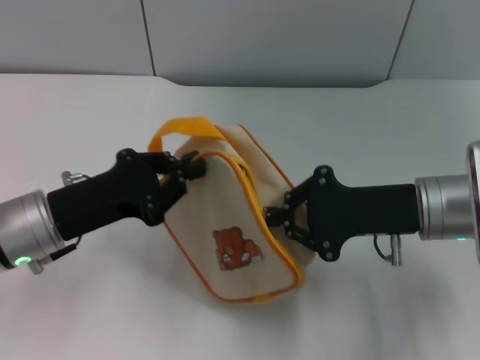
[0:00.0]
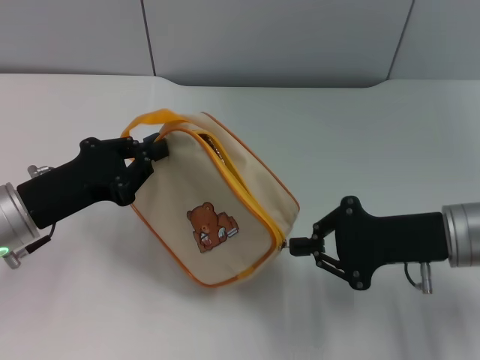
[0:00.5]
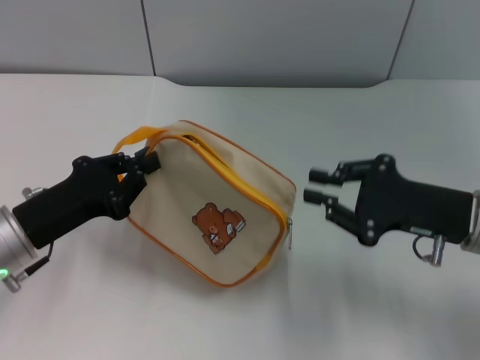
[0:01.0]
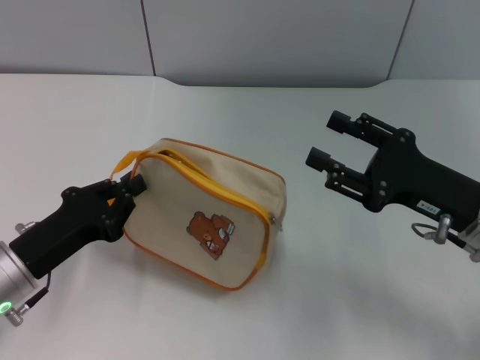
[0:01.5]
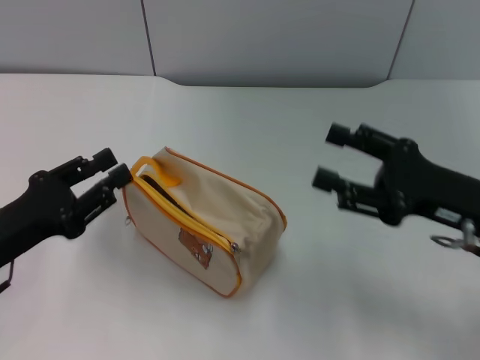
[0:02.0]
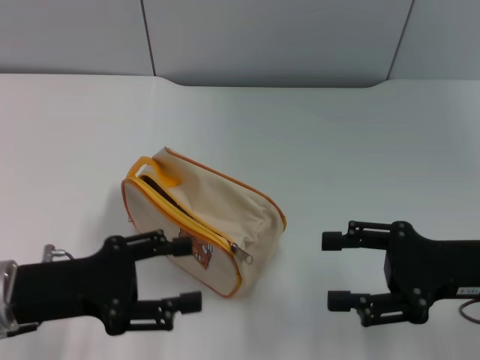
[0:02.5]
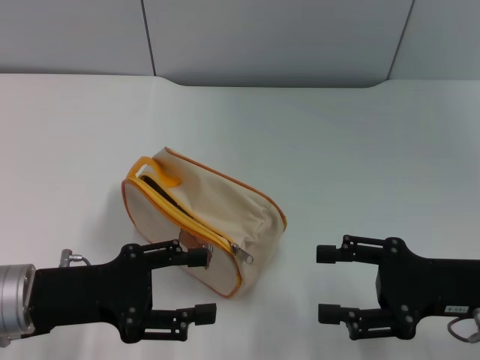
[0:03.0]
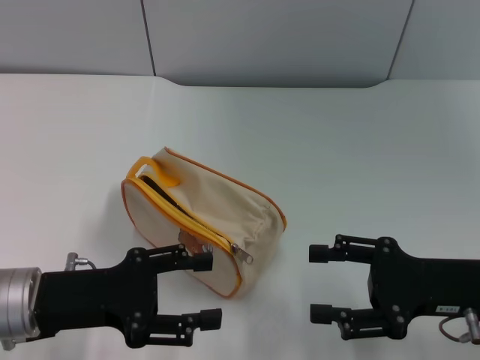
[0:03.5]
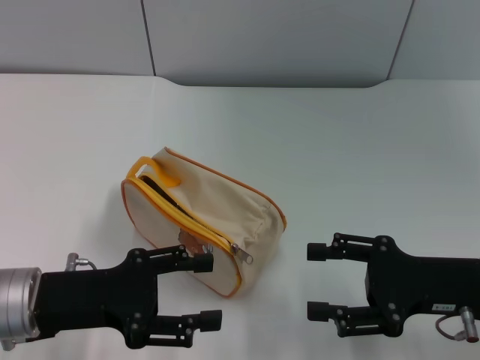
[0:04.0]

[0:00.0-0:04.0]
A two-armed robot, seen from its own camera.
Step, 0:01.5 to 0:02.0: Place the bag on the table with left gripper.
0:00.0 to 0:02.0: The right gripper heads to the right, covering roughly 5 cm, and opens, while the left gripper travels to the left by approximately 5 cm.
0:02.0 to 0:04.0: The left gripper opens up.

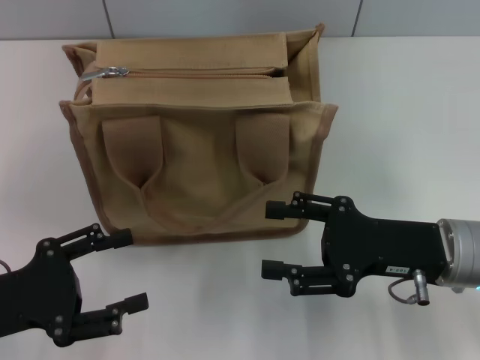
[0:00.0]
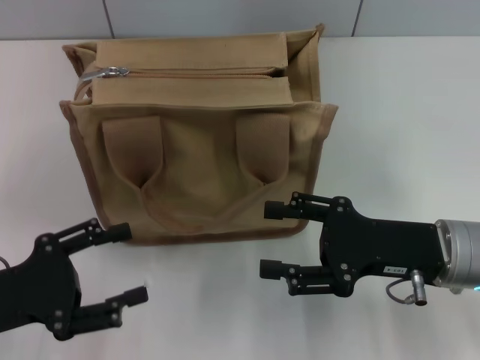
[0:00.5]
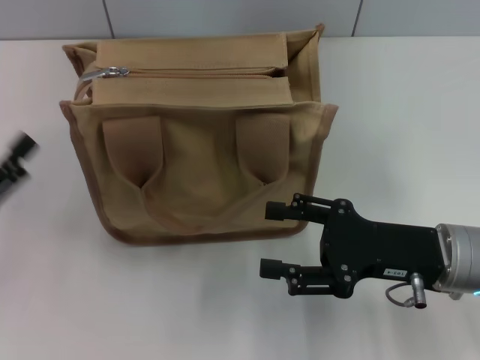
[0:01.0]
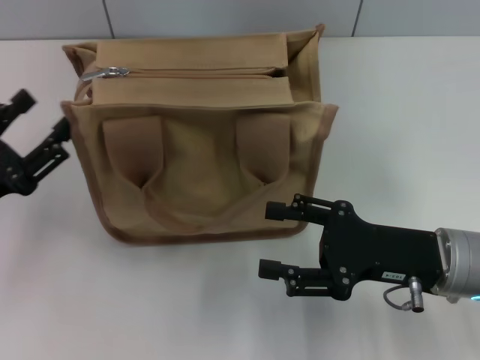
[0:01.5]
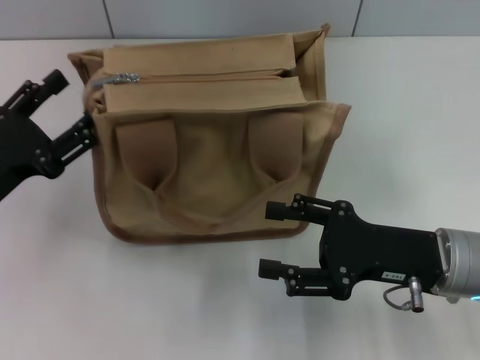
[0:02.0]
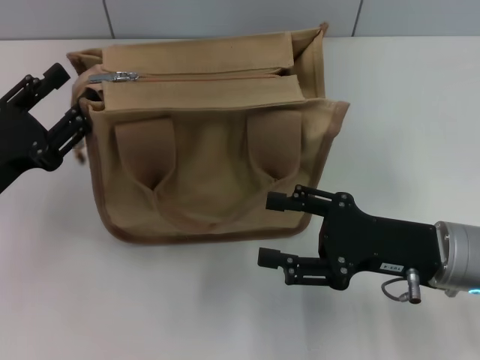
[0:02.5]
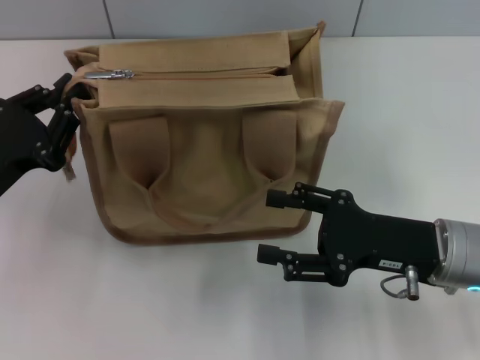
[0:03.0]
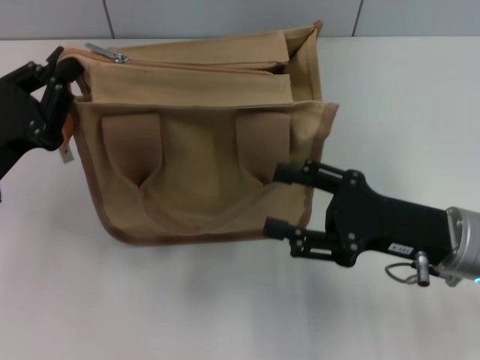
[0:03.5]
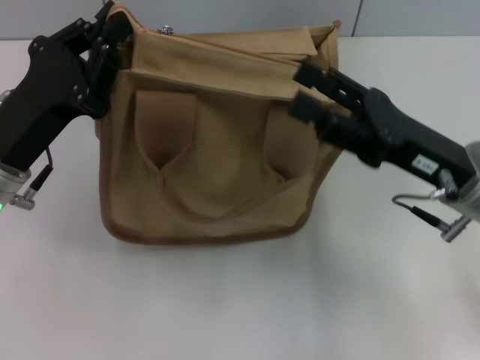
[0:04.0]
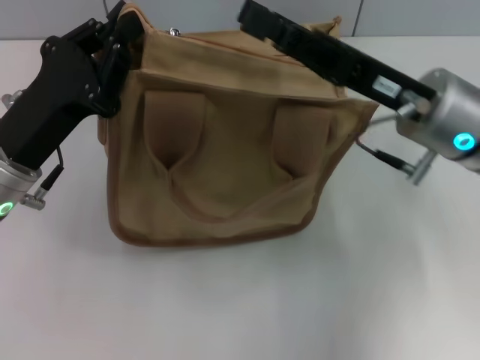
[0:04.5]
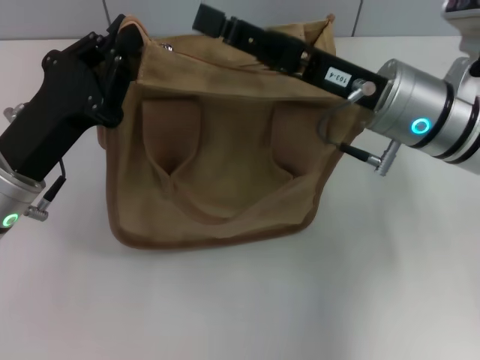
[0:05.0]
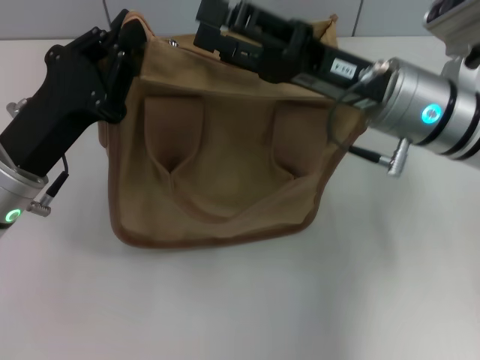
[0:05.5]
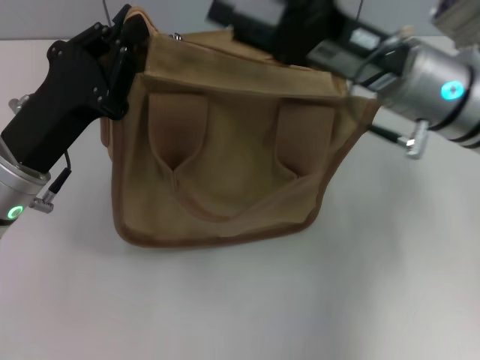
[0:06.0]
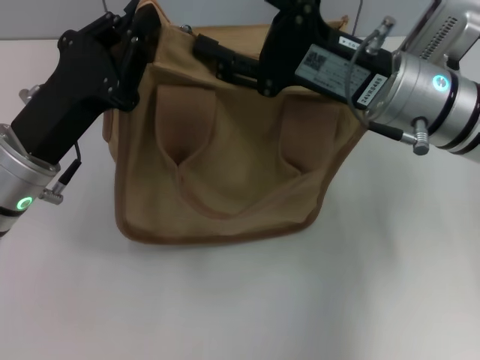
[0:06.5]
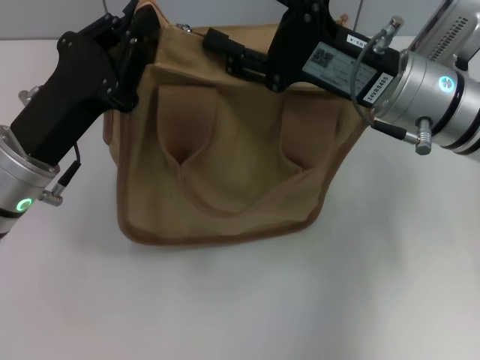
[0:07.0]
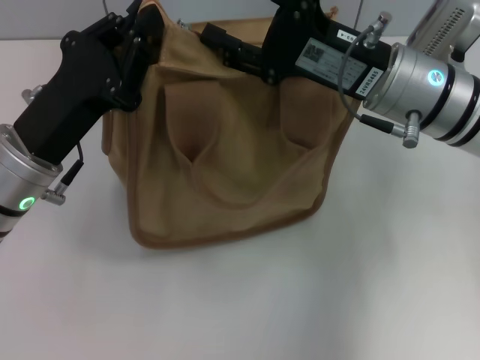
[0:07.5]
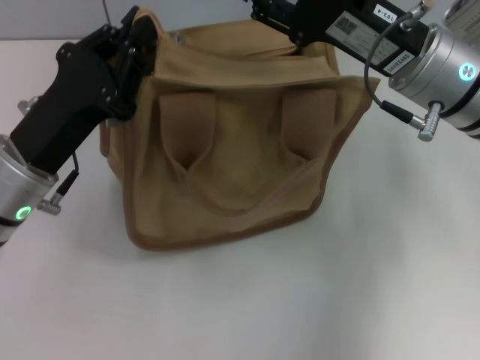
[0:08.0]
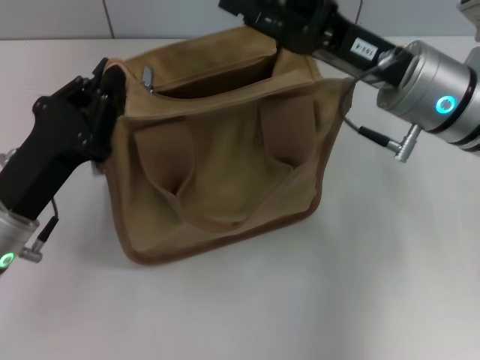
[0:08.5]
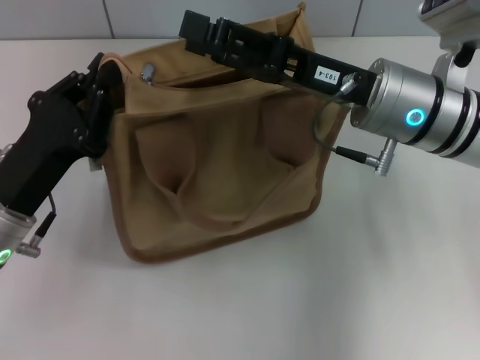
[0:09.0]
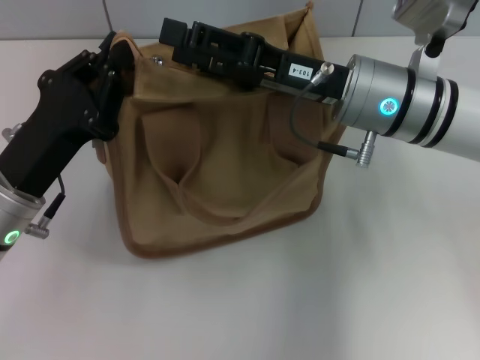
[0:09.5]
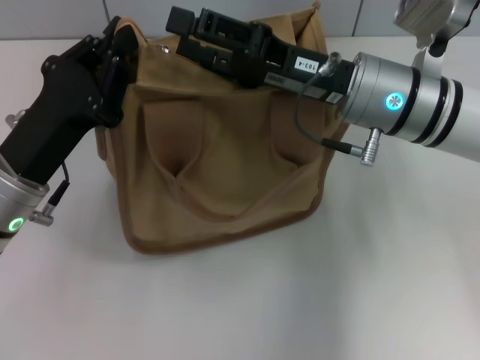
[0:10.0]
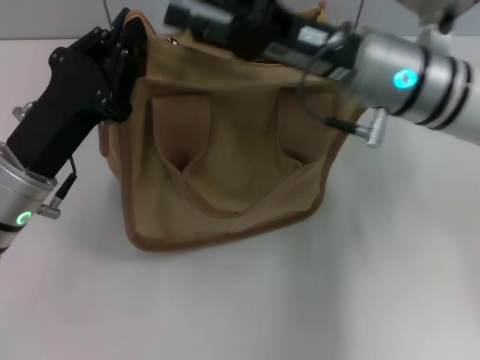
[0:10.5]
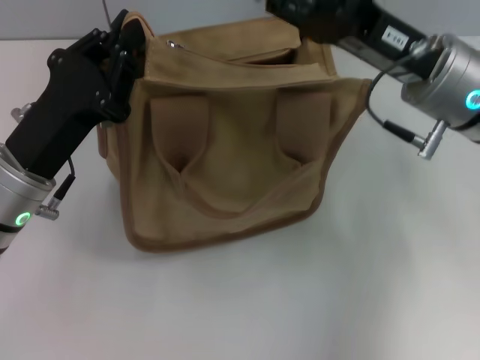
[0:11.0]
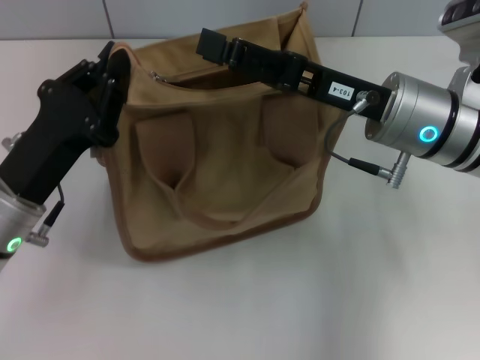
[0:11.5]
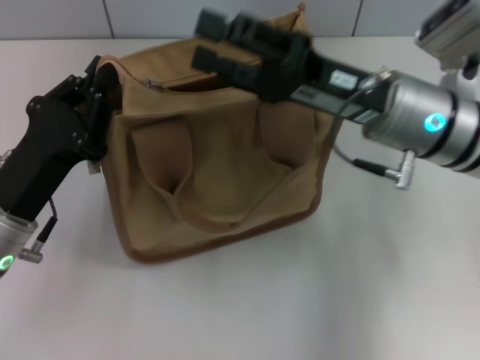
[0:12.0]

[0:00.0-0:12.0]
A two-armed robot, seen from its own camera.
0:00.0 to 0:02.0: The left gripper heads forward, covering approximately 5 cm.
0:02.0 to 0:04.0: The left gripper shifts approximately 5 cm to the right, and closes. The right gripper ends up roughly 5 cm from where it was.
0:04.0 to 0:06.0: The right gripper is displaced forward and to the left by approximately 10 cm.

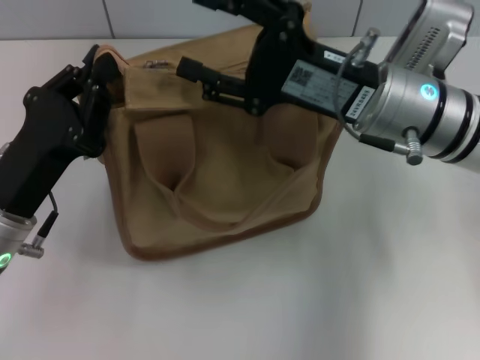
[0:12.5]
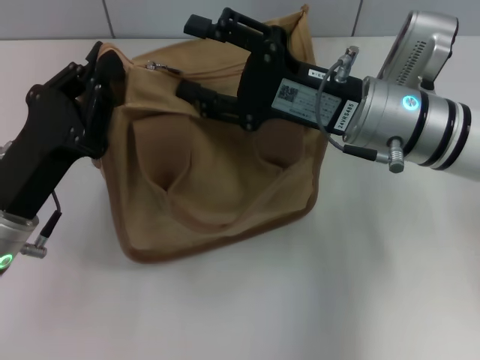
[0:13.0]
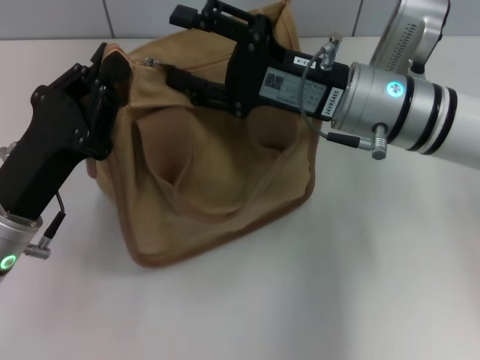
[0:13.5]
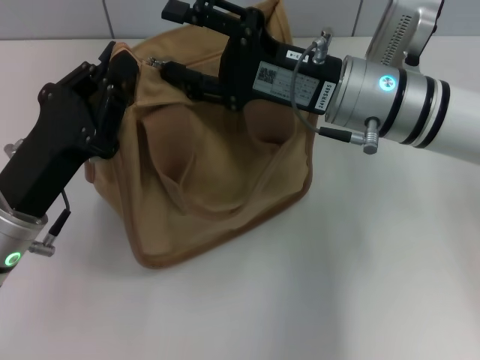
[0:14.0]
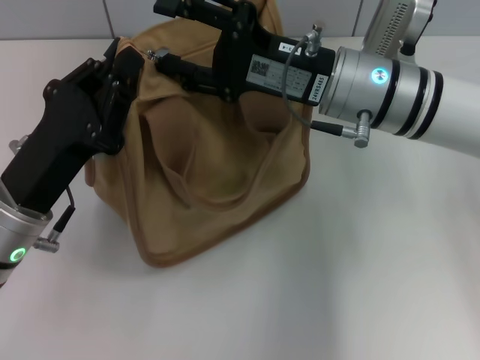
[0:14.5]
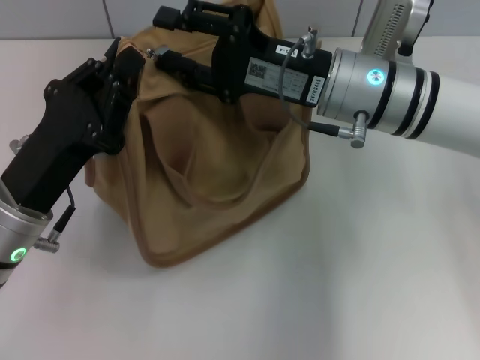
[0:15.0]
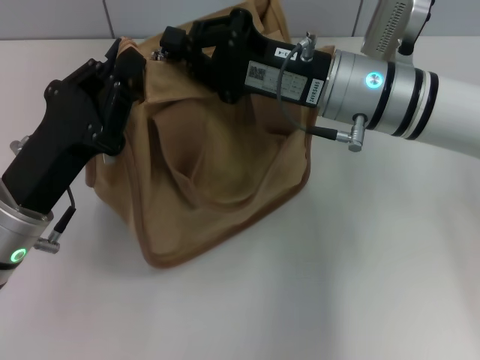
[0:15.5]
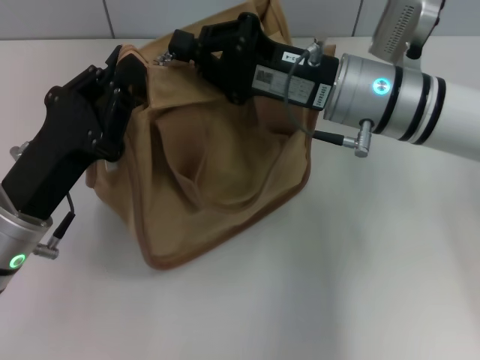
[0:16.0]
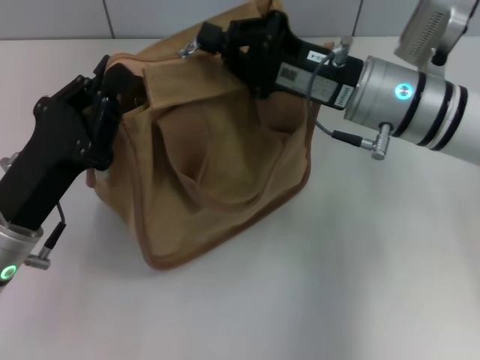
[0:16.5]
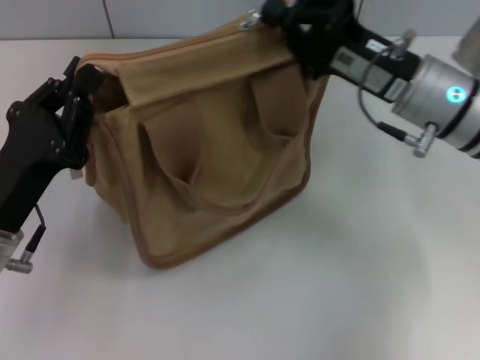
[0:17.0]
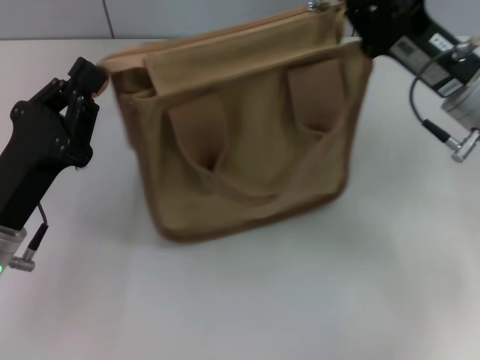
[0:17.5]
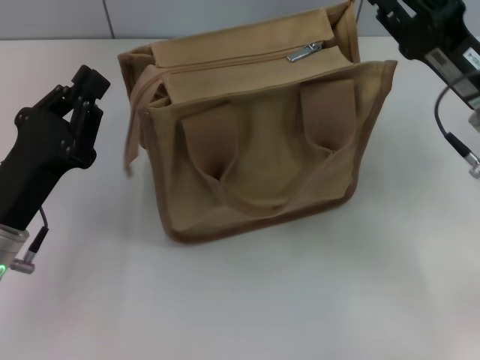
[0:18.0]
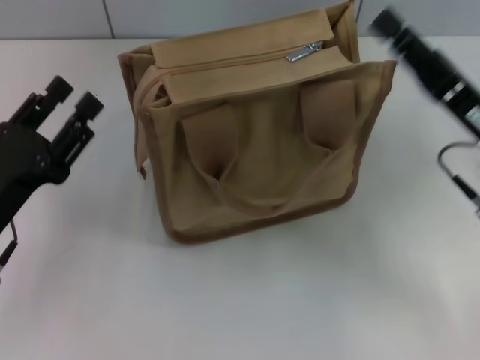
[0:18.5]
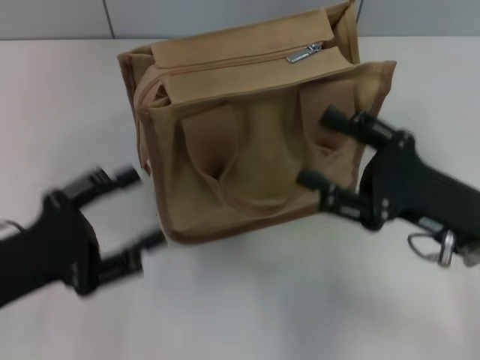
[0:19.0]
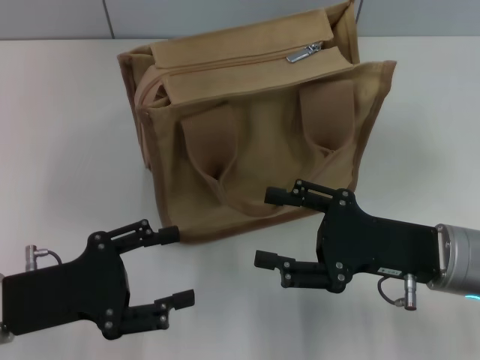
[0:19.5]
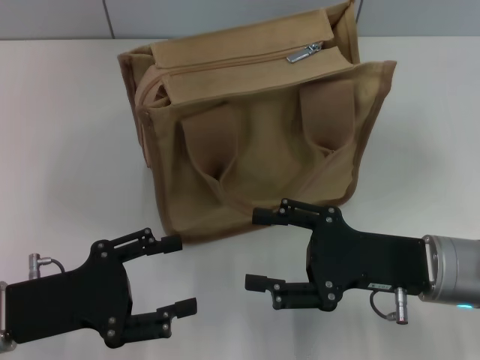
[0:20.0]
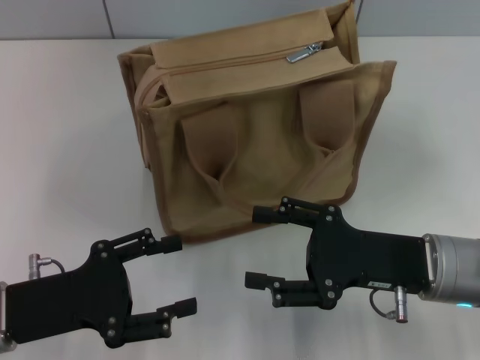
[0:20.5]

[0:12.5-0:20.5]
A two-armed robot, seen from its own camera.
Step, 0:12.5 to 0:17.5: Pull up the zipper with your right hand.
0:14.5 to 0:16.5: The right gripper closes its fingers.
0:16.5 to 0:18.5: The left gripper opens up. The right gripper heads to the right and backward, covering some 15 cm, and opens its fingers.
0:18.5 to 0:20.5: The right gripper shifts by roughly 10 cm, while the left gripper opens.
